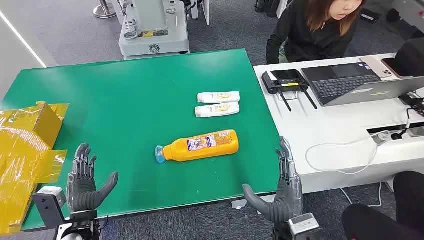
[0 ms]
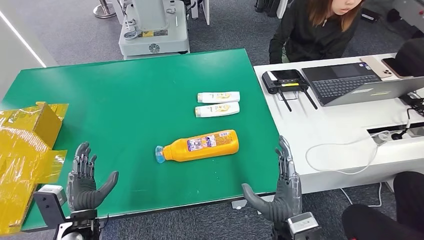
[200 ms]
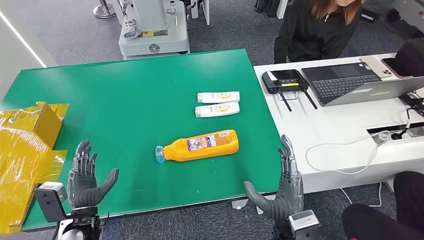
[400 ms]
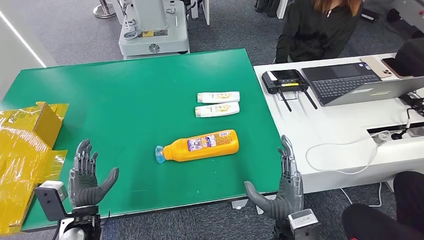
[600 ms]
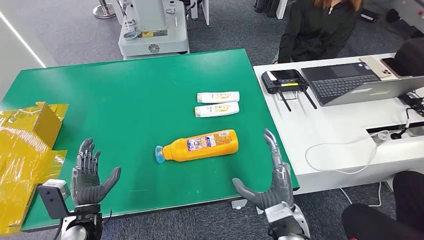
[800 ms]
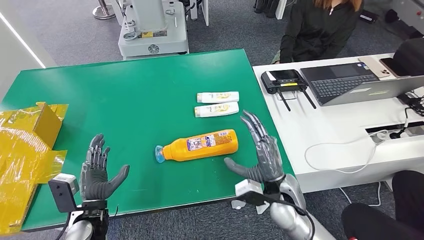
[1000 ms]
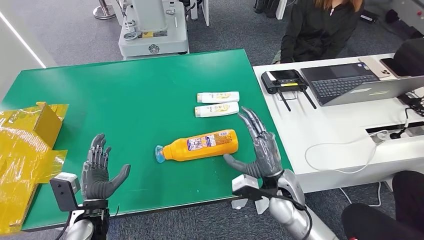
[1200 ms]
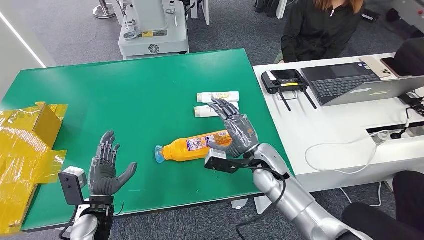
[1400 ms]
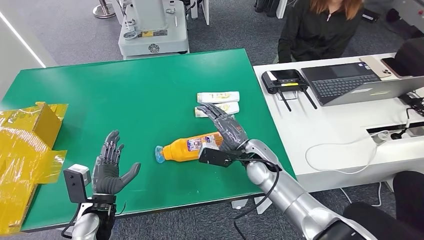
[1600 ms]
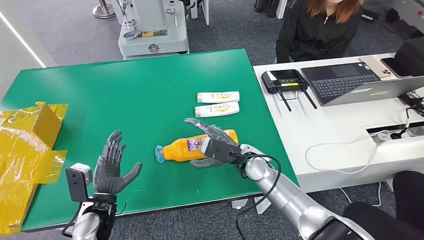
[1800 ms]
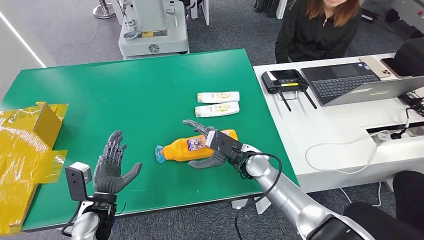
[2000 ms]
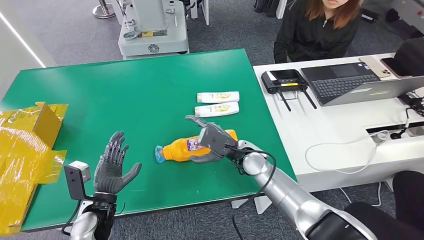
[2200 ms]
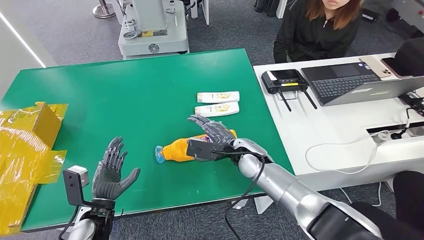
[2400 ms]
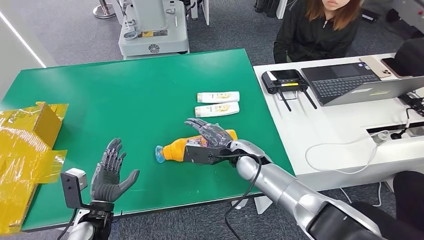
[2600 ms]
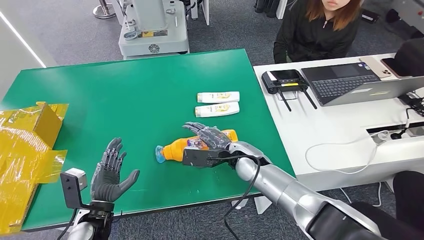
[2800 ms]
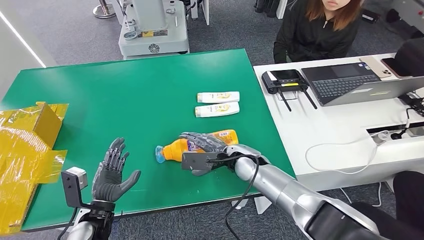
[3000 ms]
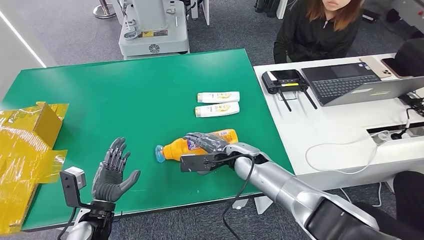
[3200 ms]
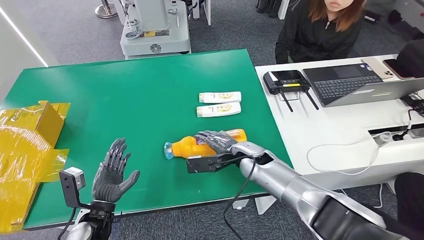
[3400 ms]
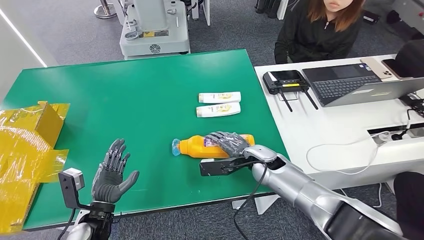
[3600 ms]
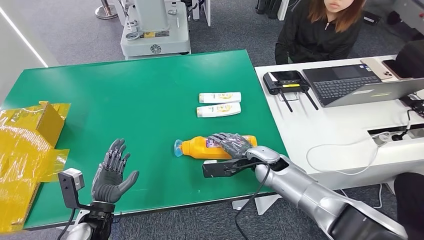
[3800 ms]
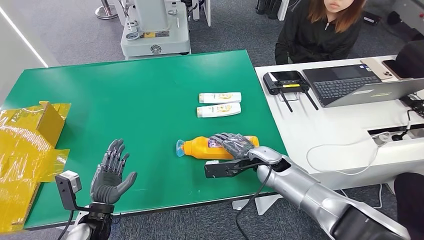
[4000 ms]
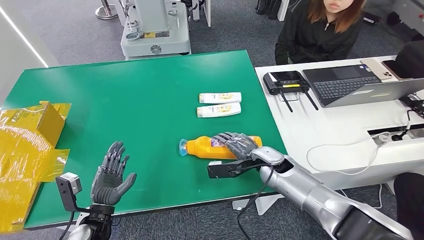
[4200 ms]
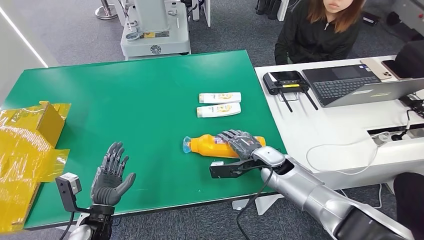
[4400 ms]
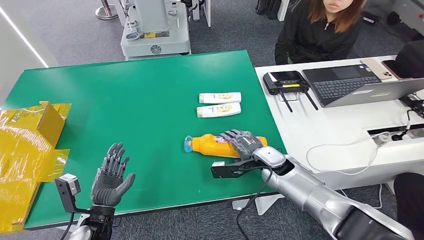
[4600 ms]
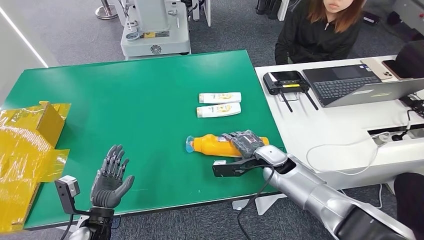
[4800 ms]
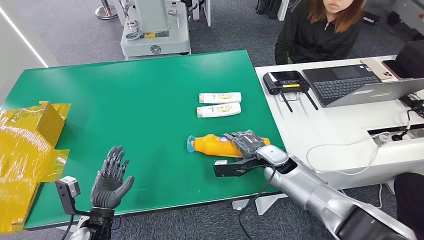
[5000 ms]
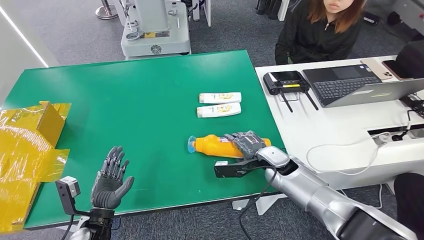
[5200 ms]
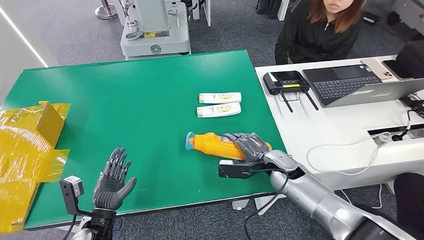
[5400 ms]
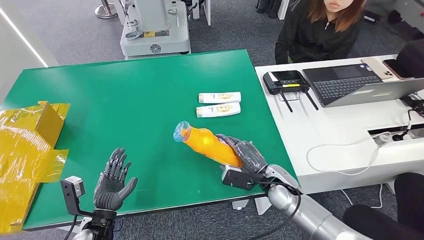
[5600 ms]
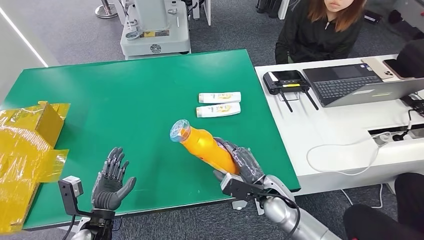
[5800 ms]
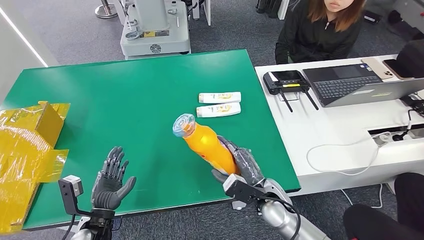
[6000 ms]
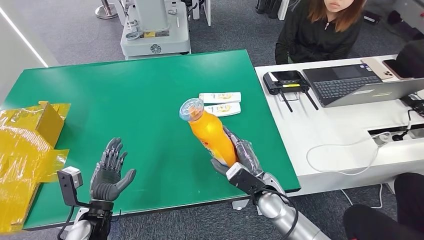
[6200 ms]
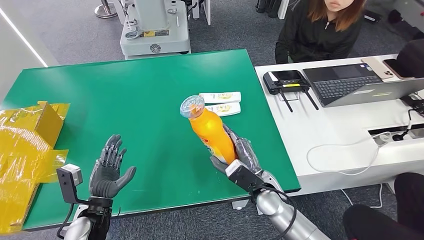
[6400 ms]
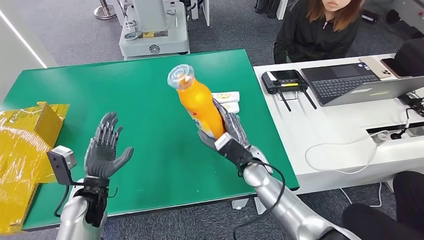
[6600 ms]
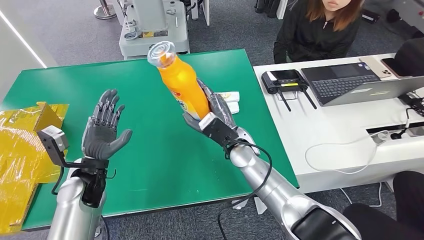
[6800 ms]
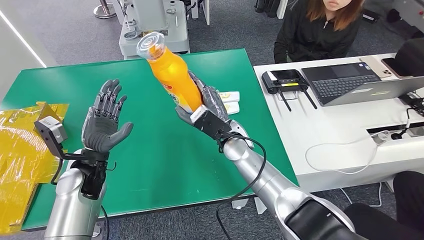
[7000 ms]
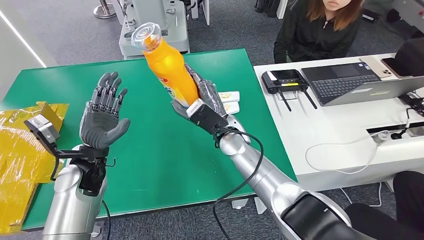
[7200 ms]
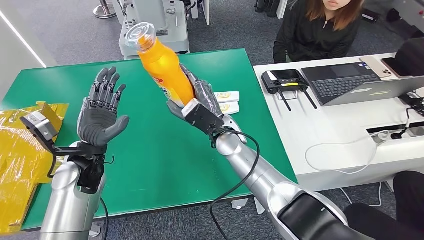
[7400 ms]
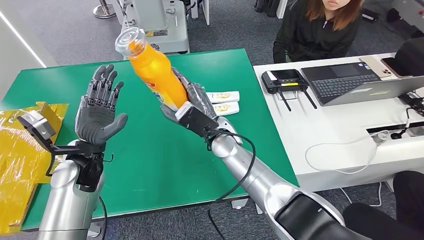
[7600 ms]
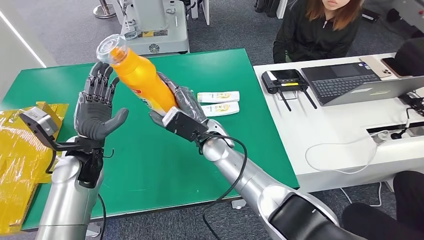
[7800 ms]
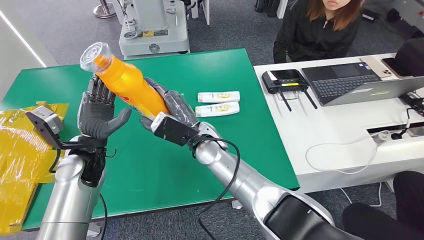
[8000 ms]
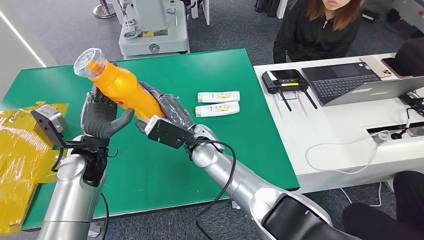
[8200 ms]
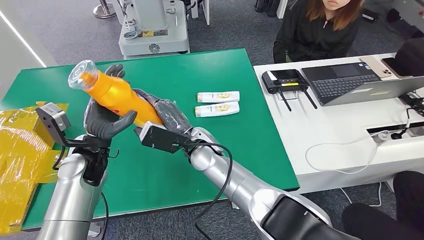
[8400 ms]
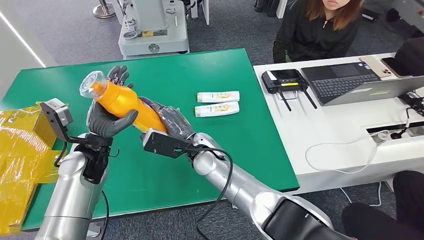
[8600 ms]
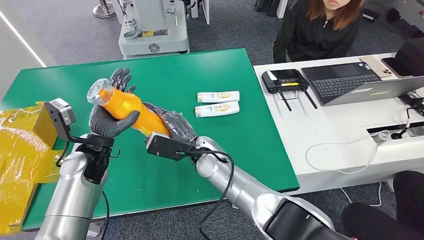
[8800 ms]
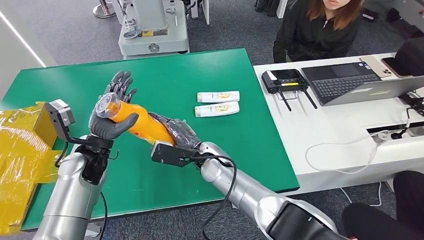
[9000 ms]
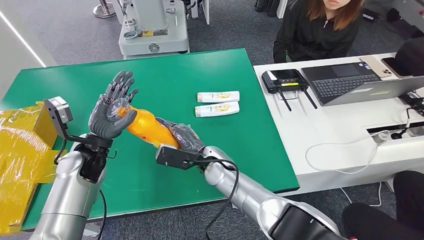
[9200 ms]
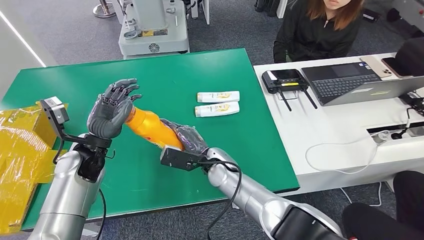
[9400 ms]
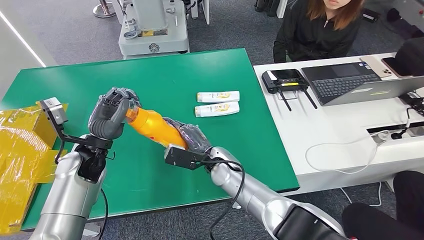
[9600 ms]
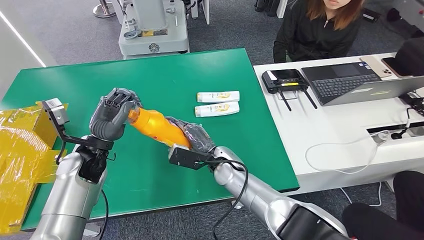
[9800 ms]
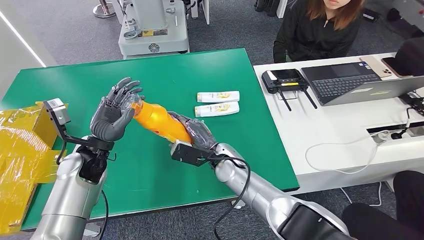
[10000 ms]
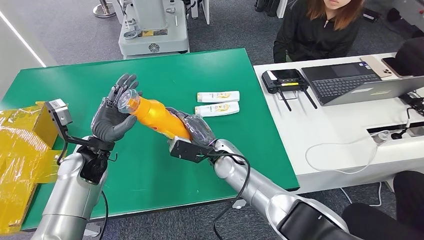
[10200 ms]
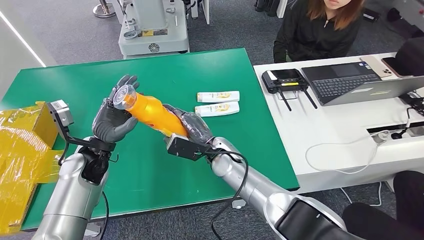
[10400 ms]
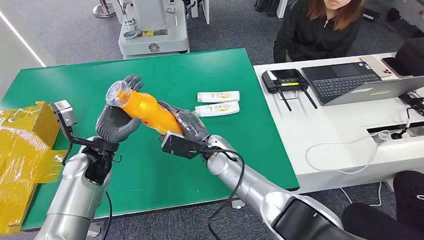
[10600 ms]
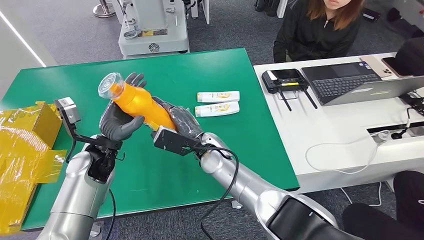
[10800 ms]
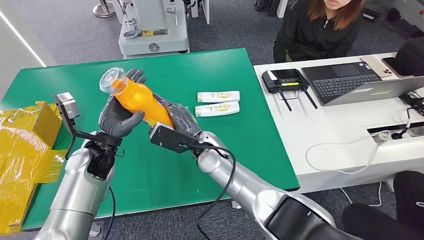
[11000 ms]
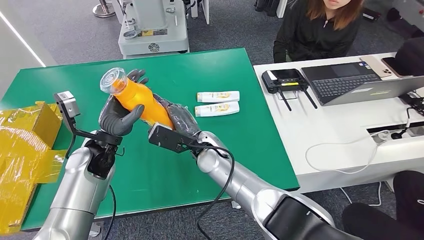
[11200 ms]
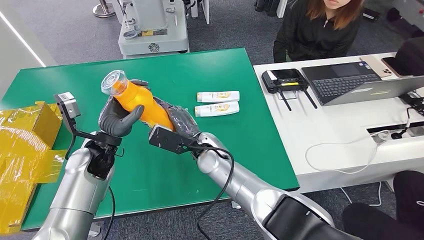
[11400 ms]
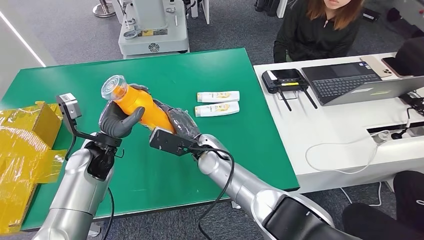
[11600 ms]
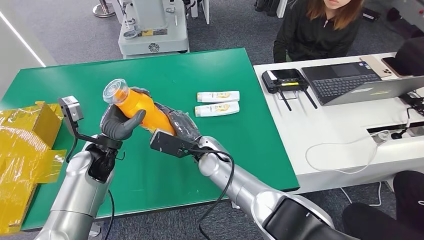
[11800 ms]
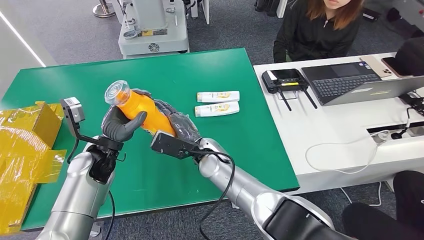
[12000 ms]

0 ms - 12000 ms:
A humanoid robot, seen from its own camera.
Step, 0 ms - 6200 ms: Pick up the bottle from the table.
3000 ms - 4400 ms: The right hand is displaced to the right by approximately 10 cm.
4400 ms - 6000 ms: The right hand moves backward and to the left, some 10 cm.
7600 ms - 9000 ms: The right hand heads downward, covering approximately 5 cm.
9000 ms - 12000 ms: The hands move only a little.

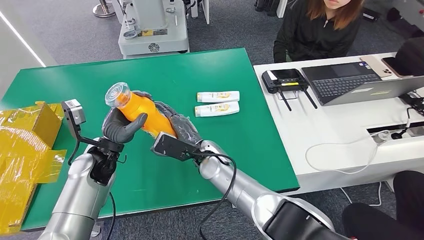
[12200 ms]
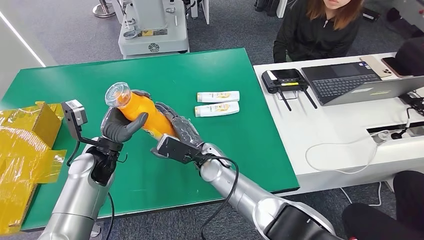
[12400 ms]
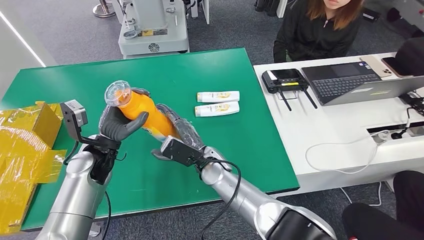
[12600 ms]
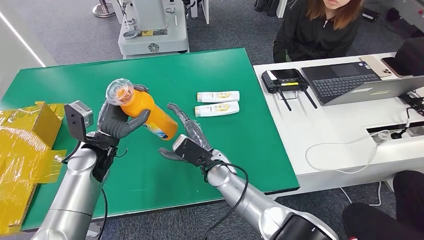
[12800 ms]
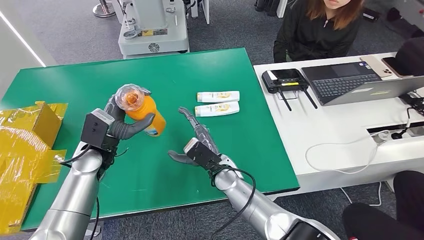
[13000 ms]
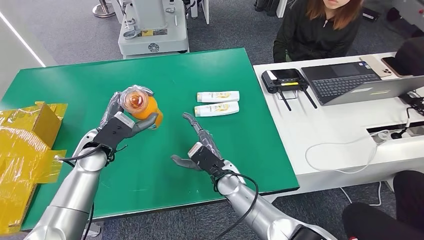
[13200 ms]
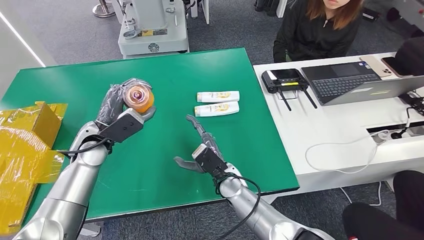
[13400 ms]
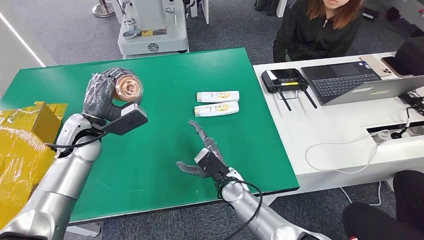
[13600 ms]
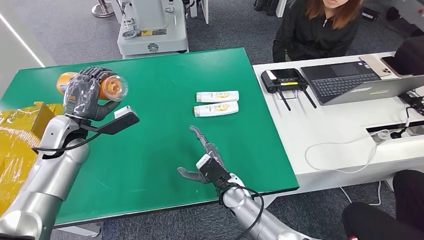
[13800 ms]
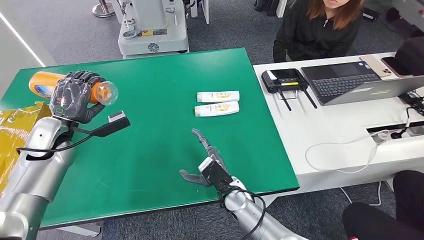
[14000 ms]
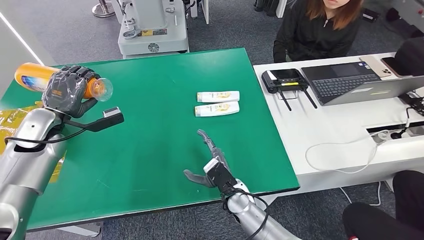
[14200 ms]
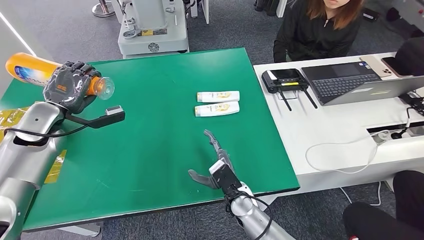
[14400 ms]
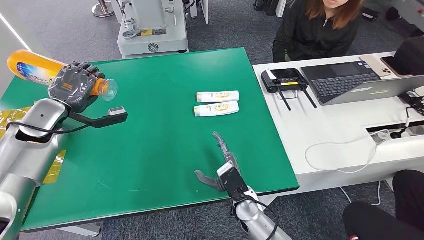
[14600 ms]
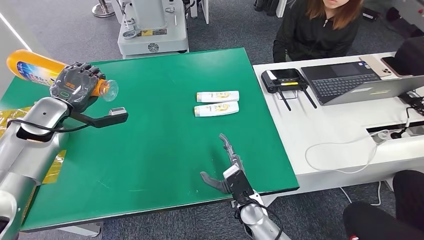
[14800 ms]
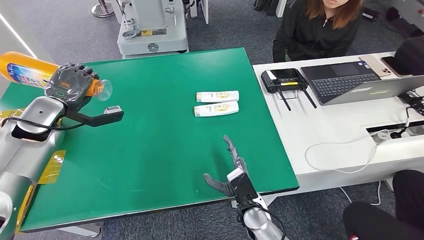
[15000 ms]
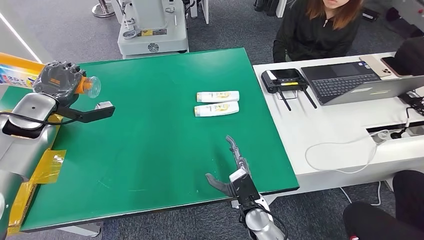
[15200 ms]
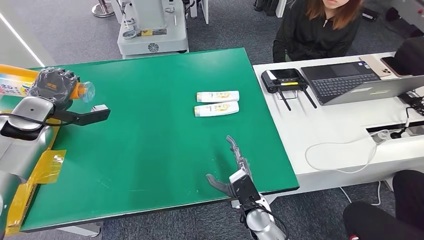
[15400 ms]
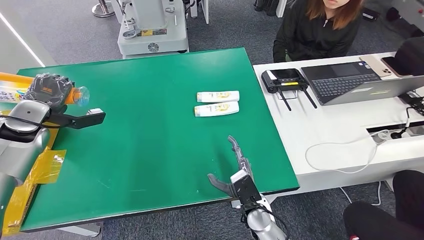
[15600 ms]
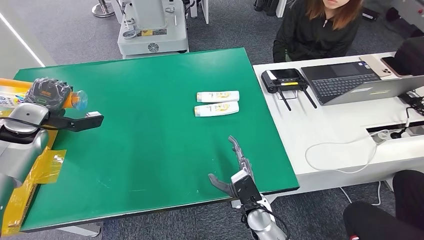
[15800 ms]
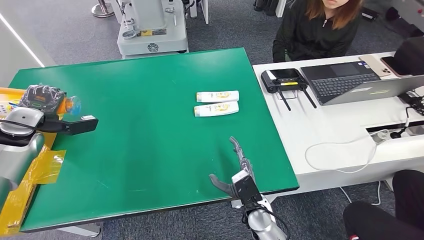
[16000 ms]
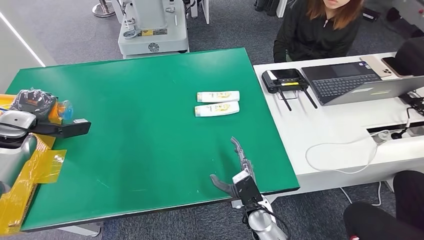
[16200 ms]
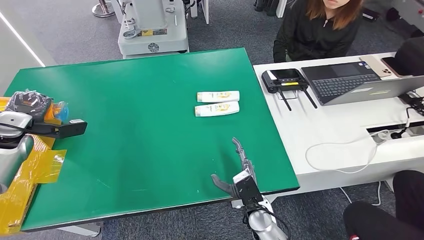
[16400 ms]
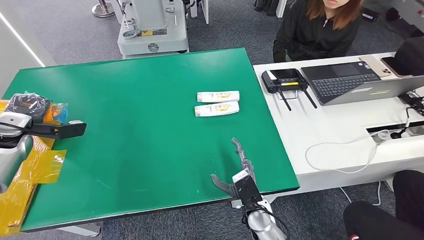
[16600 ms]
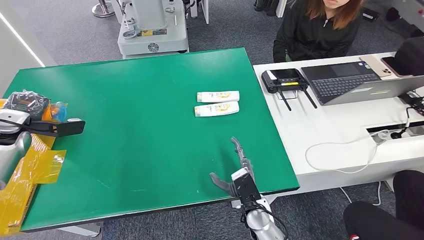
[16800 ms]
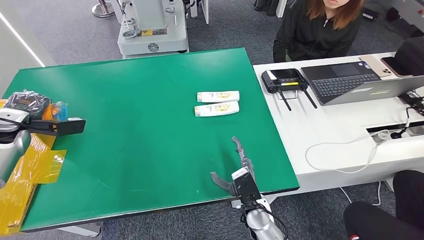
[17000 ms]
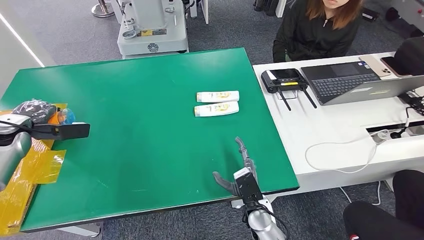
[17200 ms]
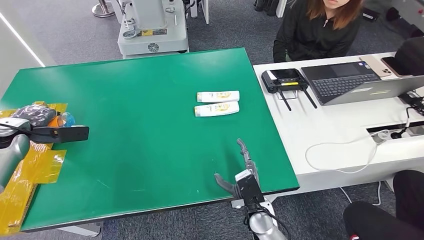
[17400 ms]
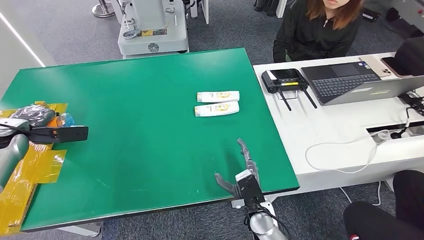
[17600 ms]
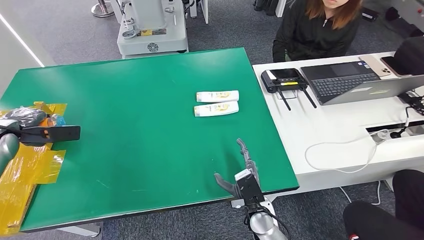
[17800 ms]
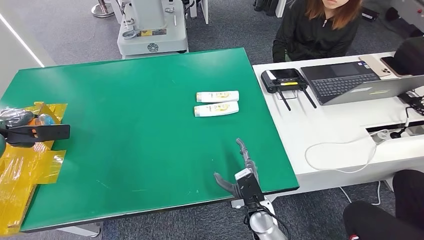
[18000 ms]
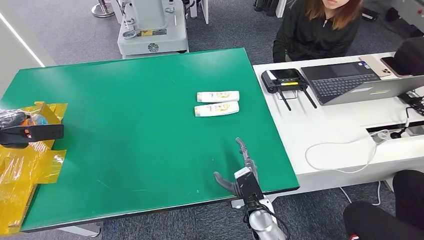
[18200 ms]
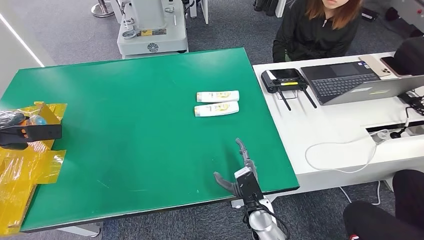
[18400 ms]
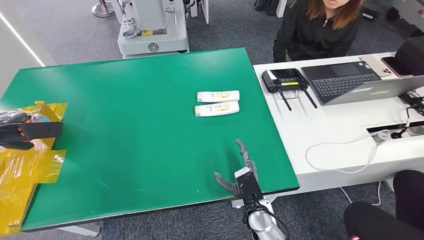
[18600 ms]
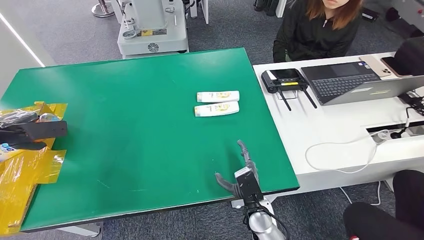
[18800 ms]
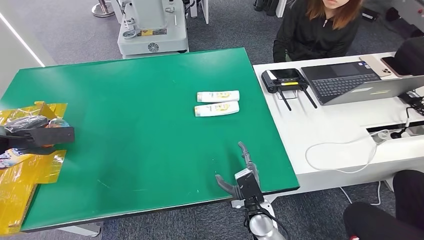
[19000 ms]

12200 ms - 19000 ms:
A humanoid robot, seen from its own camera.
12200 ms - 13600 ms: The right hand goes some 10 cm downward and backward. The left hand ends up approximately 5 cm from where it was.
13600 ms - 15000 ms: The right hand moves backward, approximately 10 cm. Meanwhile the left hand shifts approximately 10 cm to the left.
15000 ms - 16200 ms: The left hand moves to the left, approximately 10 cm.
